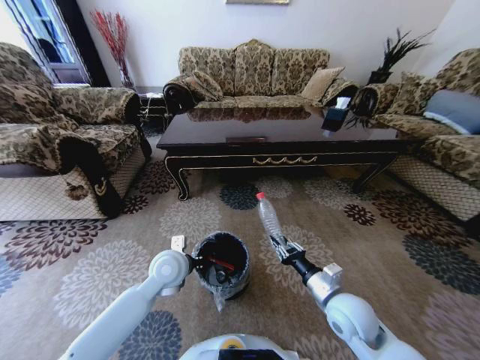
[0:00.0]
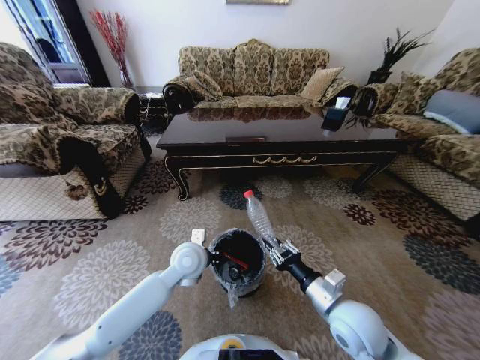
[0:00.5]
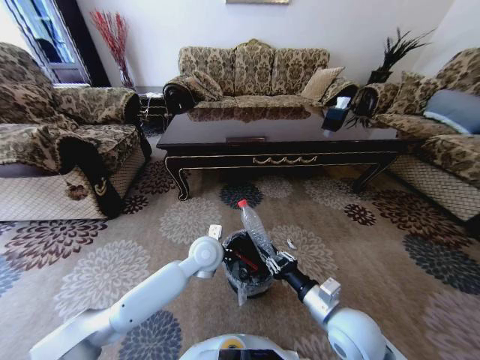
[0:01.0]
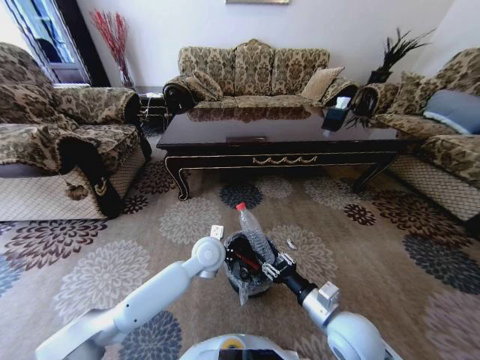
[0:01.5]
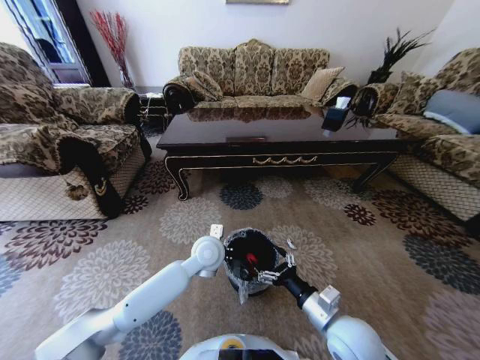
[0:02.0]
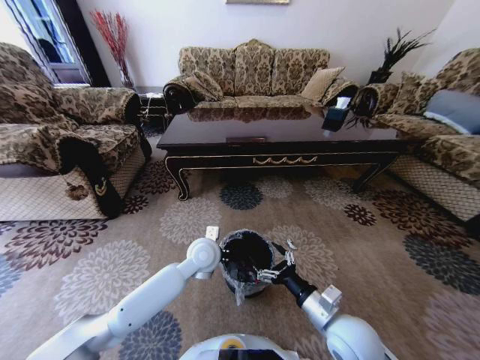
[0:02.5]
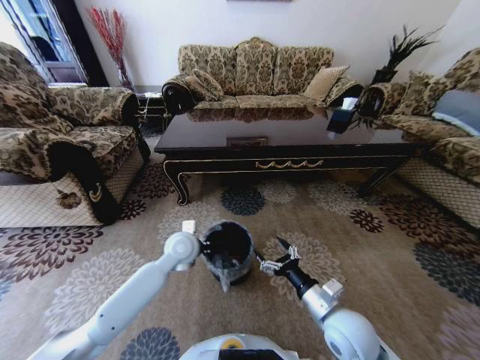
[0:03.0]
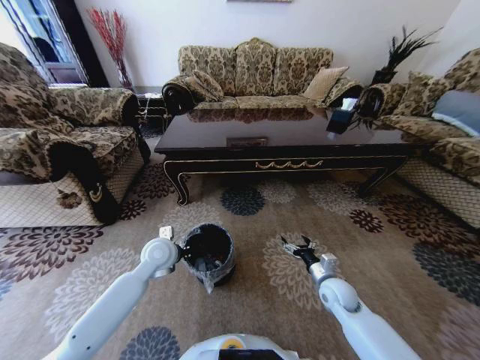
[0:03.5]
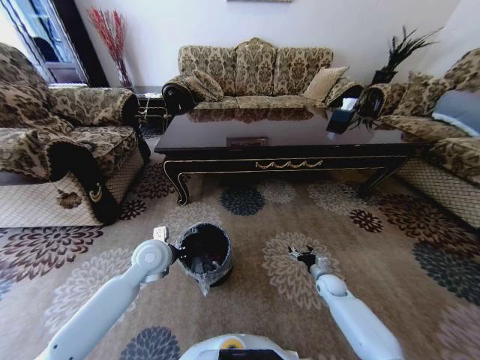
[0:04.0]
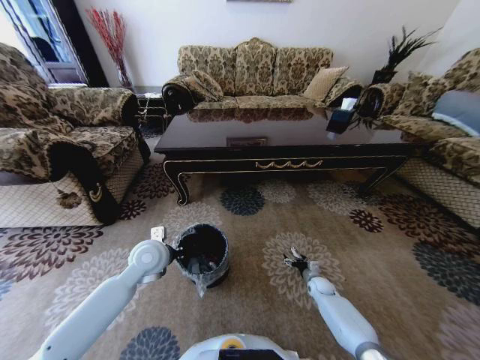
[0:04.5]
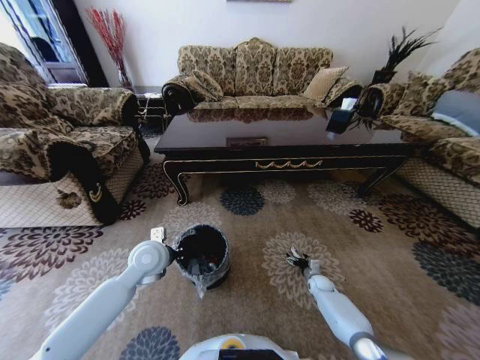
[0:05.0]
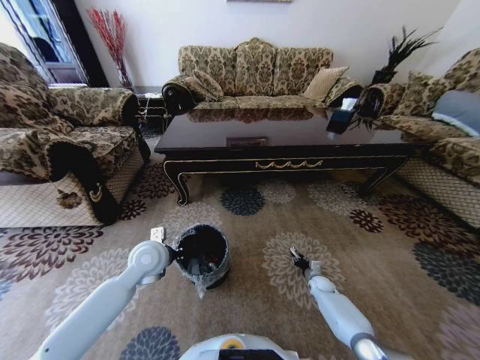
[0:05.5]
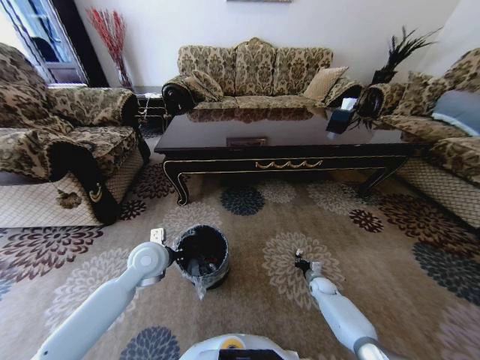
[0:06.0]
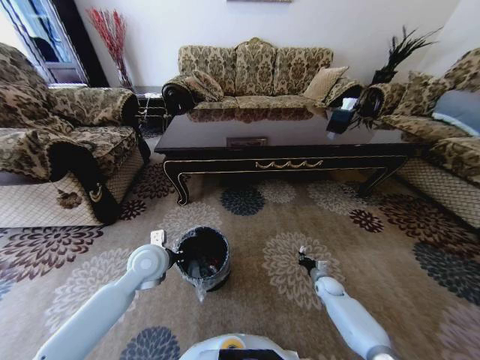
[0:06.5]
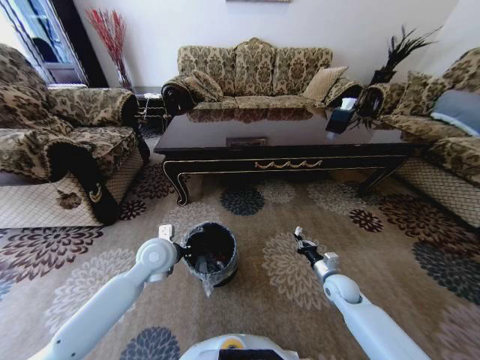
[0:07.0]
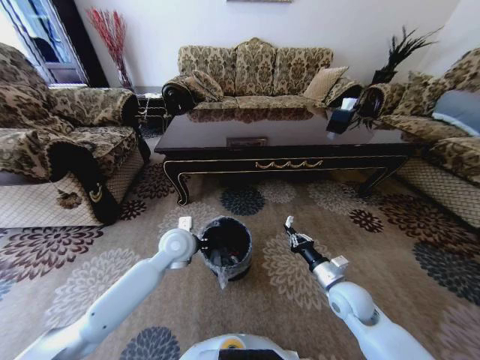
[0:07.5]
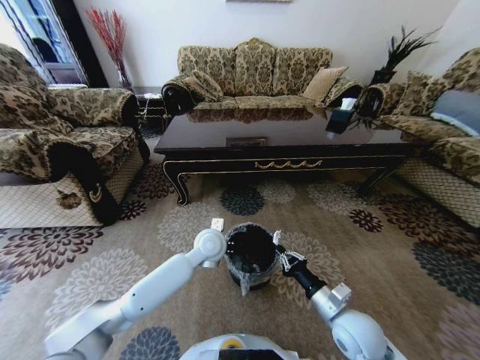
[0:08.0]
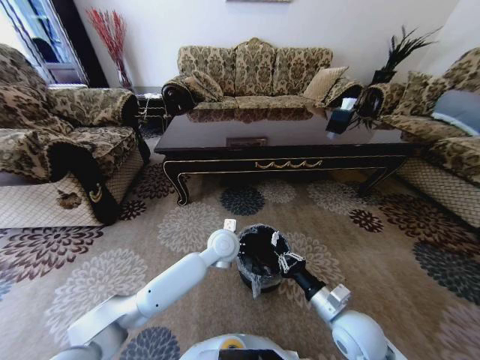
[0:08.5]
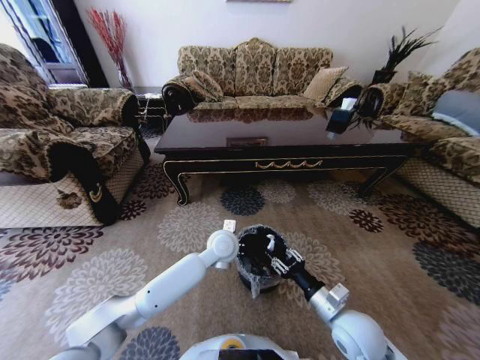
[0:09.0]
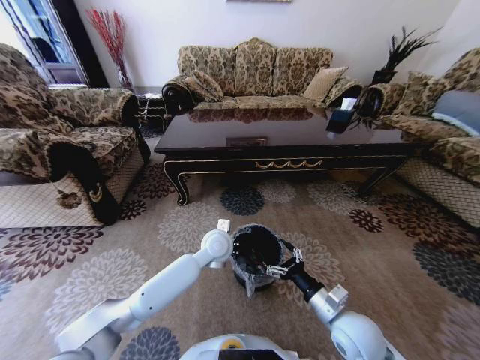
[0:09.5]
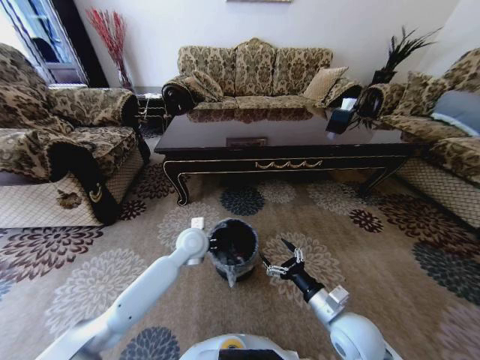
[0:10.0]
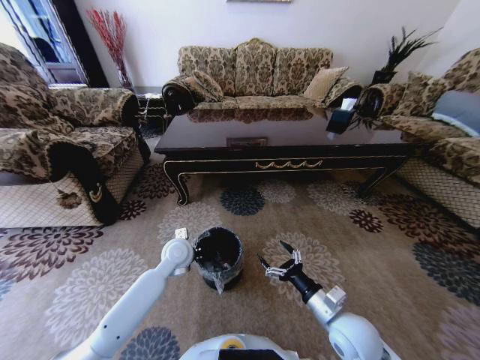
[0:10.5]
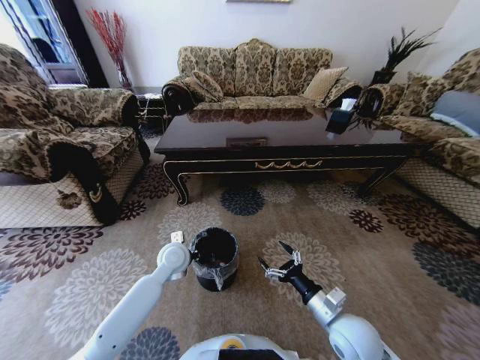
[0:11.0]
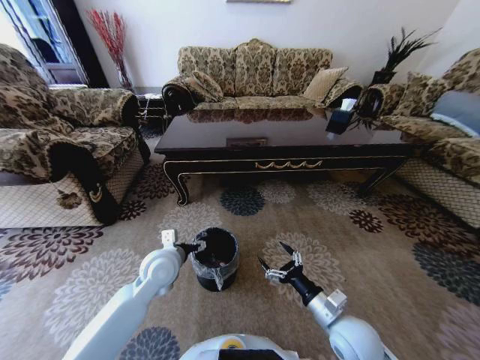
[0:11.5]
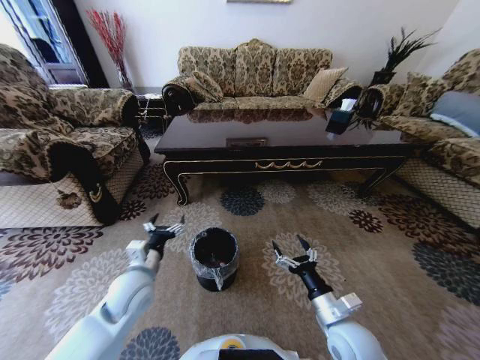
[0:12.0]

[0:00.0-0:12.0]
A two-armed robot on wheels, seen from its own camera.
Task of the whole recording: Move to the front of the table and pick up the trash from the floor, then place it into the trash bin.
0:00.0 to 0:02.0: The left gripper is displaced to the right by roughly 10 cm. Meanwhile the right gripper changes place by some 5 cm, and opens its fingers.
0:02.0 to 0:04.0: The right gripper travels downward, forward and to the right by about 30 cm, while the left gripper moves to the left, some 15 cm.
0:04.0 to 0:06.0: The right gripper shifts some 5 cm downward, and closes its fingers.
0:06.0 to 0:08.0: The left gripper is displaced to the right by about 15 cm, while the right gripper is displaced upward, backward and to the left by about 35 cm.
0:08.0 to 0:10.0: The left gripper goes some 5 cm to the left. Meanwhile the right gripper opens.
0:10.0 to 0:12.0: The left gripper heads backward and to the left, covering roughly 20 cm, and opens.

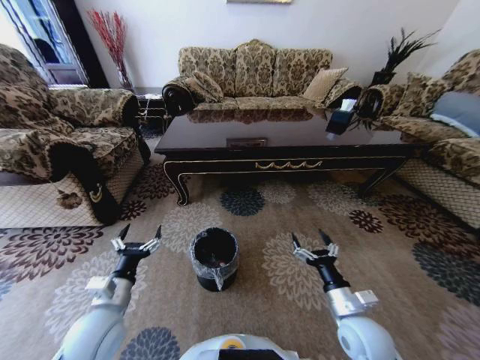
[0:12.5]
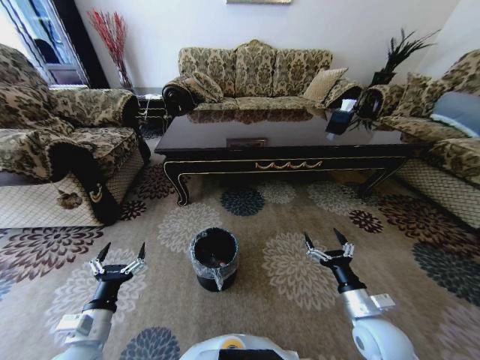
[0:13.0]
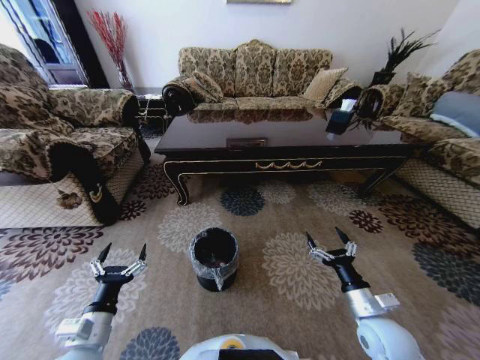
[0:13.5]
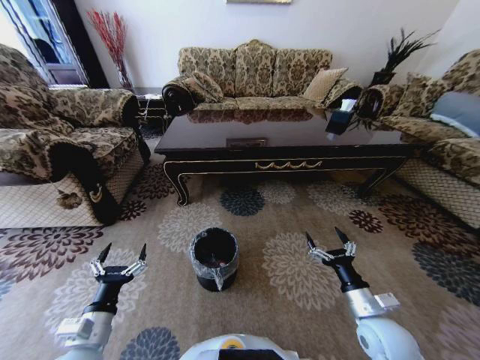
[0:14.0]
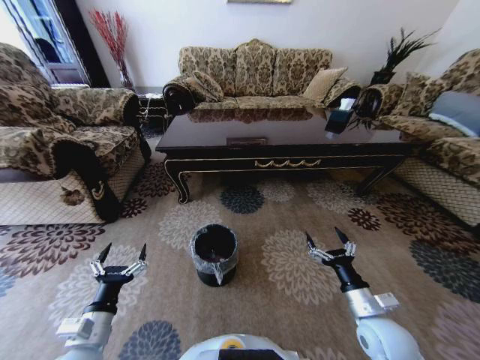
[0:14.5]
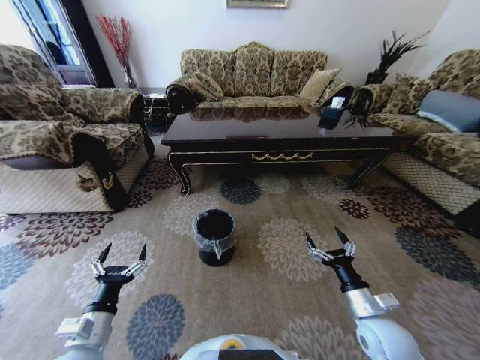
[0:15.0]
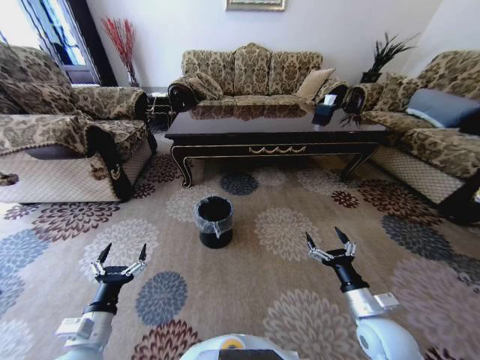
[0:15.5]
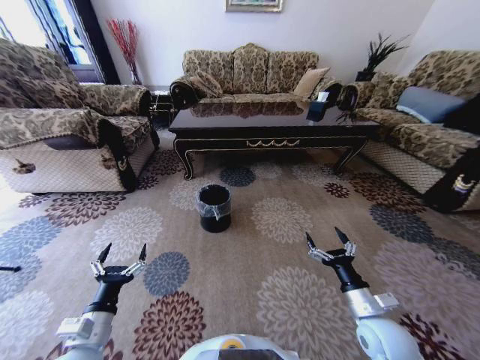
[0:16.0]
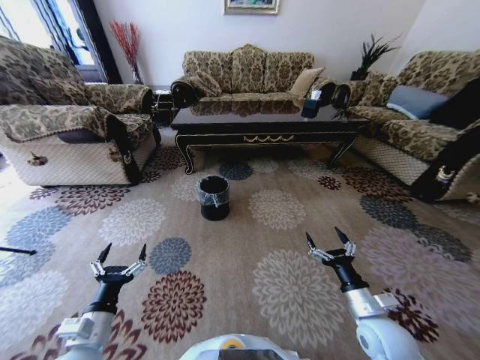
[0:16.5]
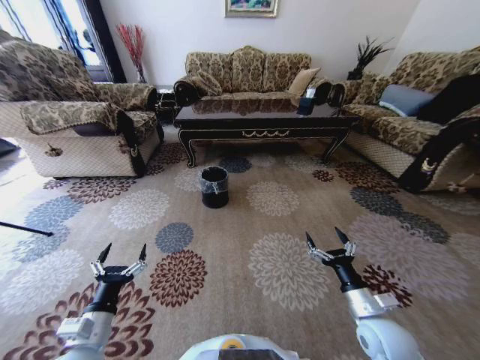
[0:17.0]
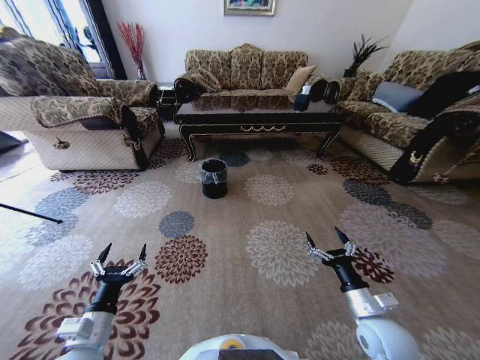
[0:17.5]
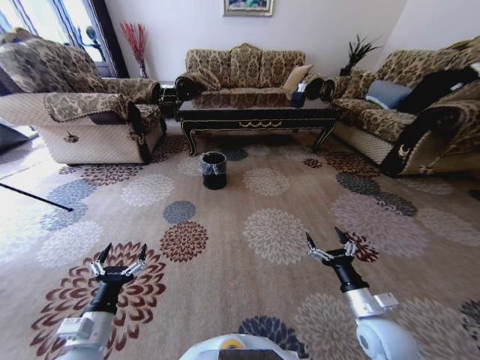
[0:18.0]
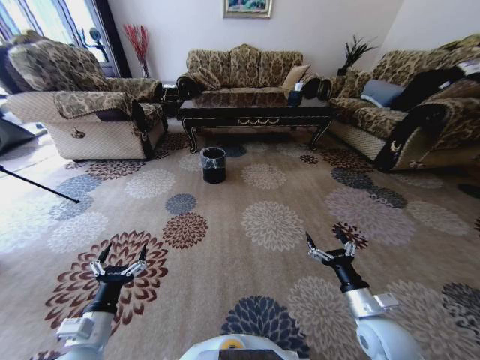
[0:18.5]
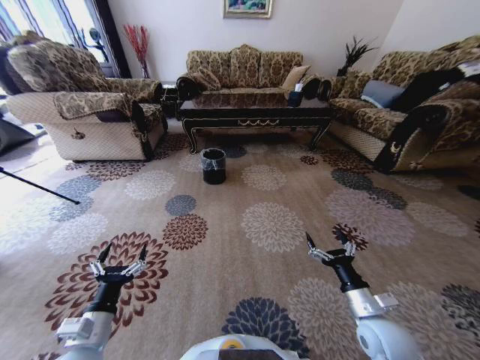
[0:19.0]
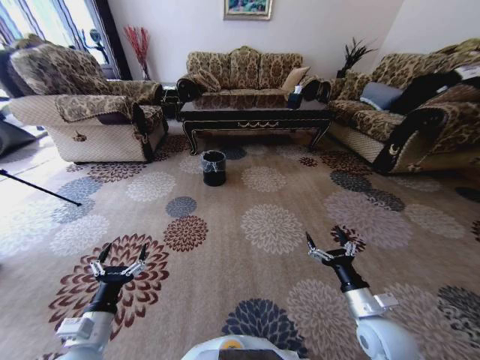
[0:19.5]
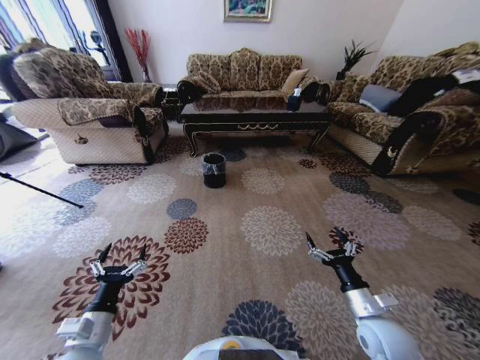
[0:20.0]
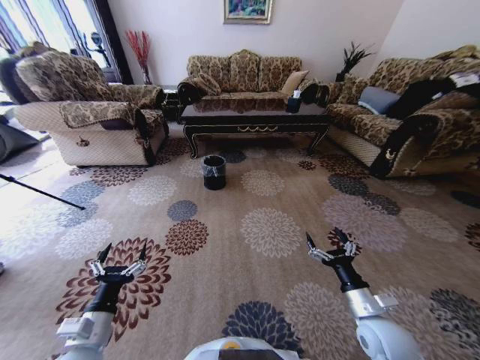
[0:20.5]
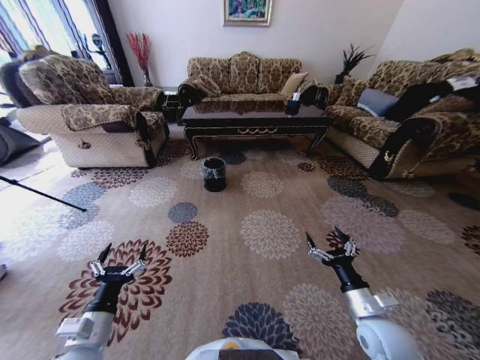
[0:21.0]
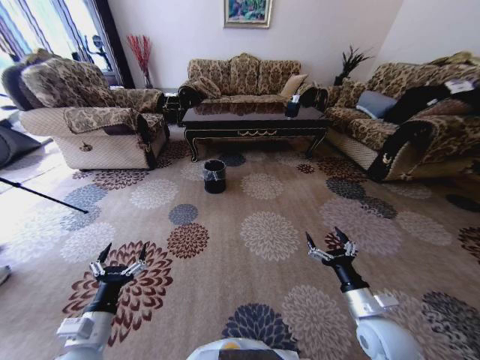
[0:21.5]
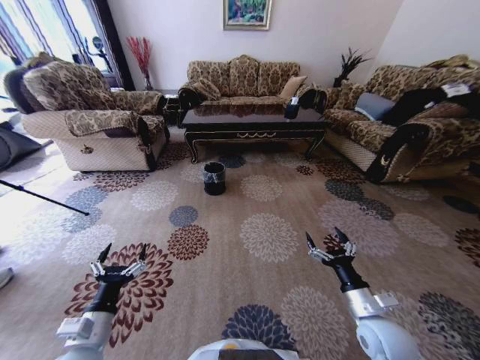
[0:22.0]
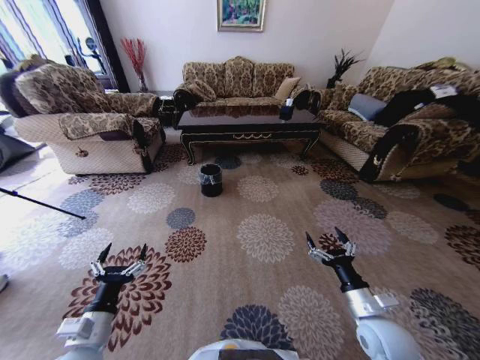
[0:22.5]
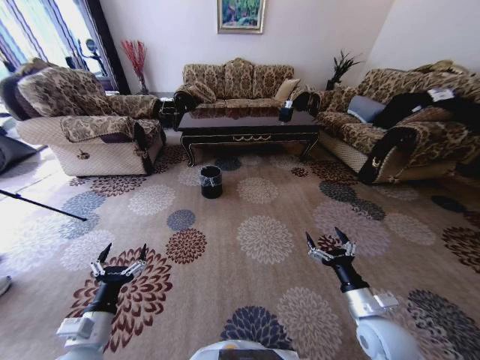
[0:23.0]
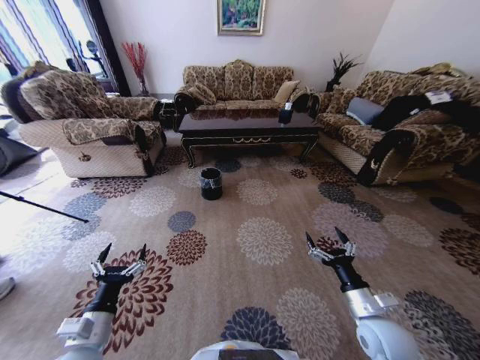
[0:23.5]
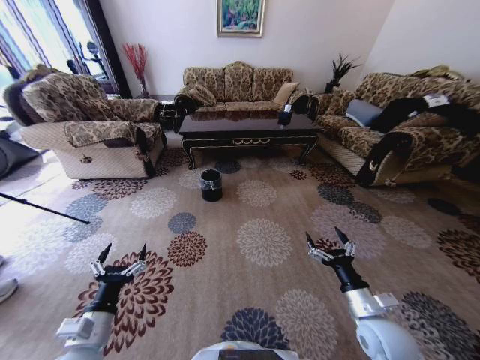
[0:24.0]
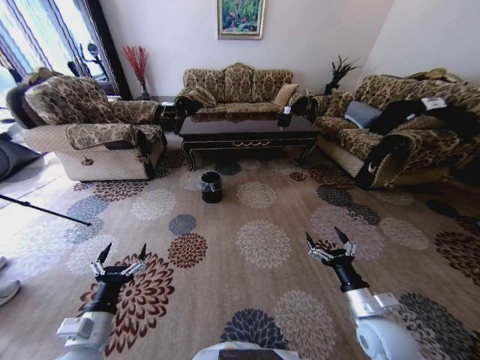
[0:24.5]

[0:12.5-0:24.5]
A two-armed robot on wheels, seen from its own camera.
Task of the whole recording: Move to the front of the table and pick up the trash from the floor, then place it into the trash bin.
0:12.5 to 0:14.5: The left gripper travels backward by approximately 5 cm.

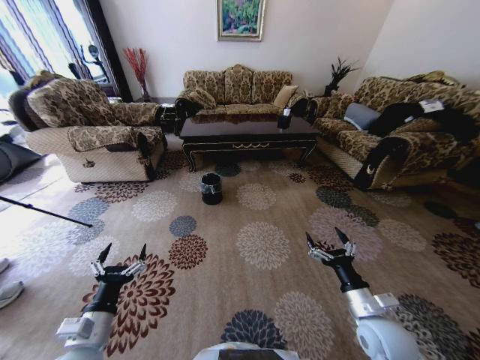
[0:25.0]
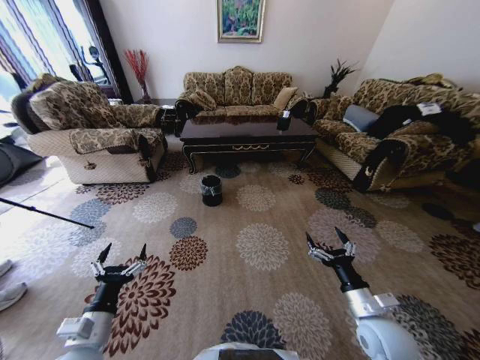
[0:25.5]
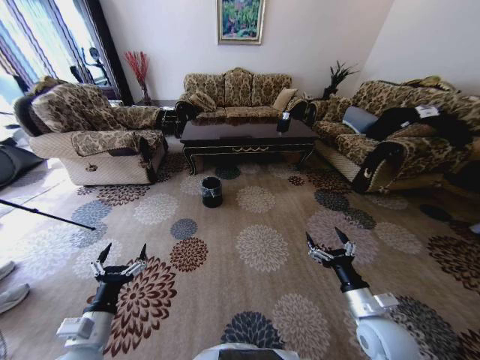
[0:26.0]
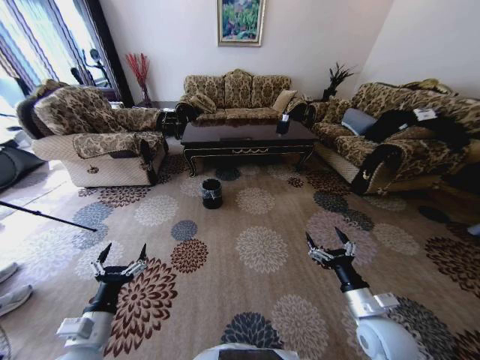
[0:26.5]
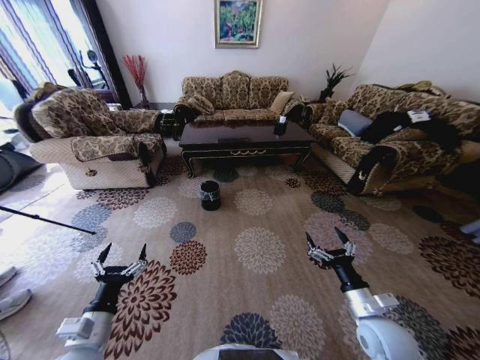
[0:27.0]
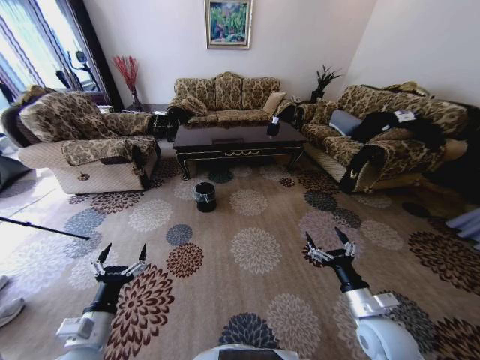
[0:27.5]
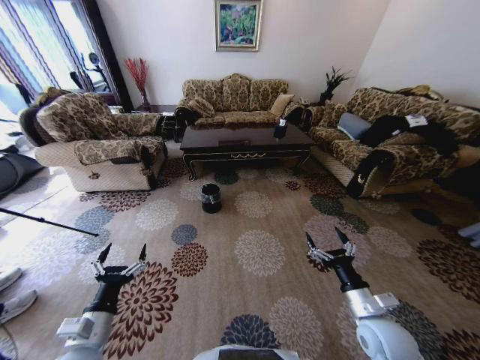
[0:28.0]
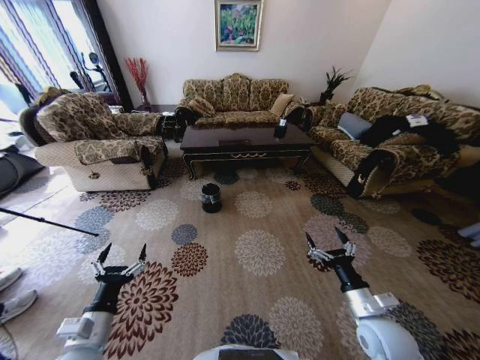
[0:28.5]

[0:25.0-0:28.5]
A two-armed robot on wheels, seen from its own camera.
Task of the whole recording: Move to the front of the table and pick up the trash from the floor, then place it into the trash bin.
0:27.0 to 0:28.5: Both grippers stay about where they are.
